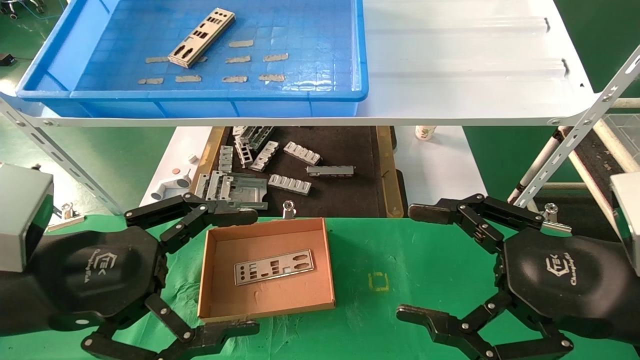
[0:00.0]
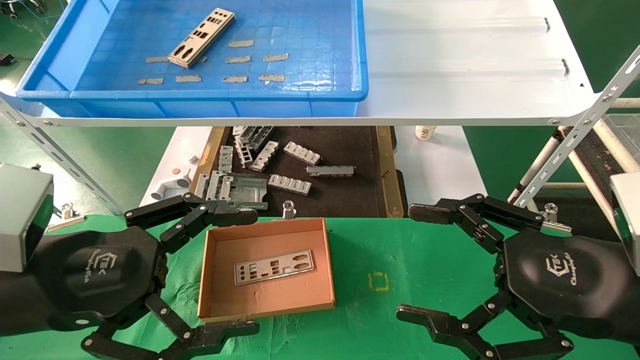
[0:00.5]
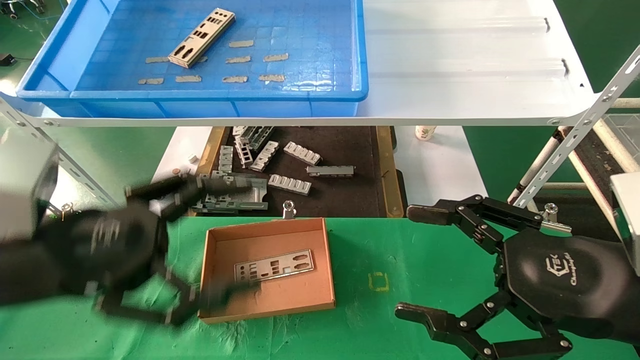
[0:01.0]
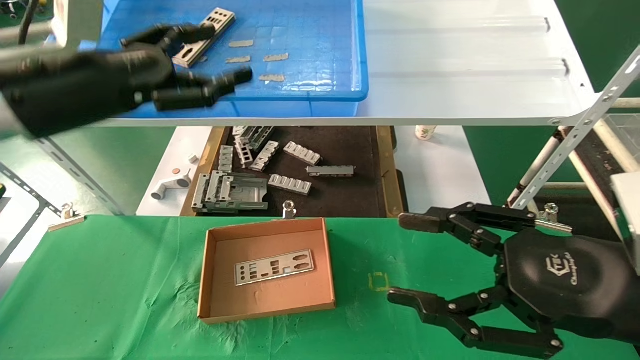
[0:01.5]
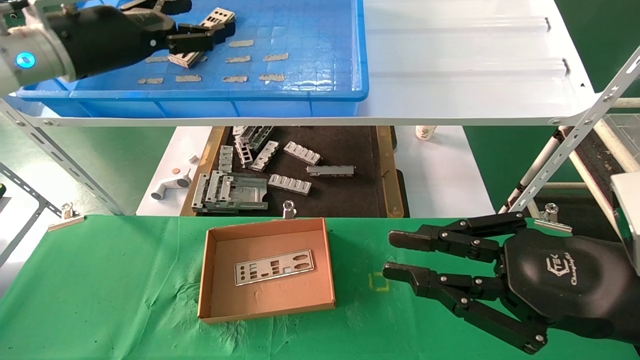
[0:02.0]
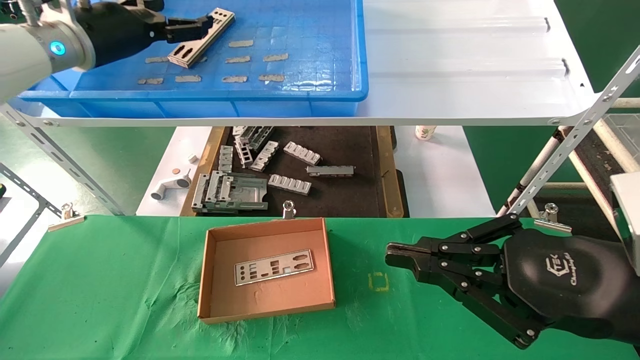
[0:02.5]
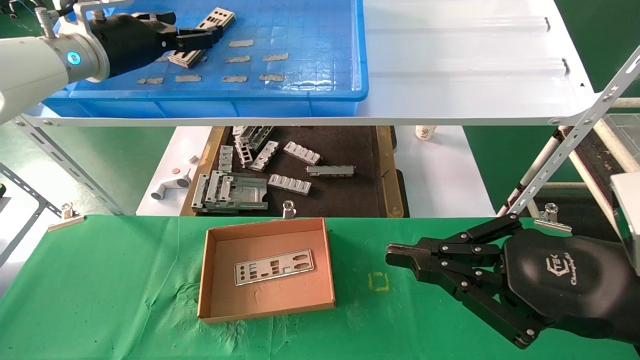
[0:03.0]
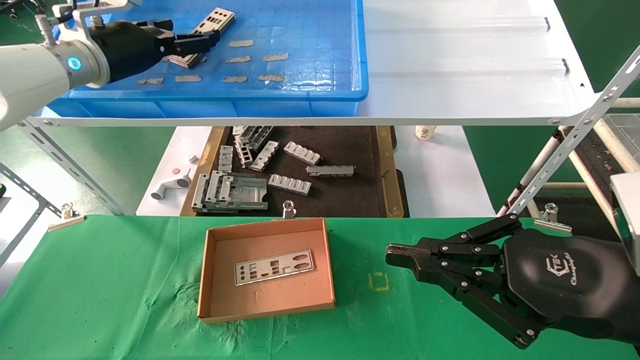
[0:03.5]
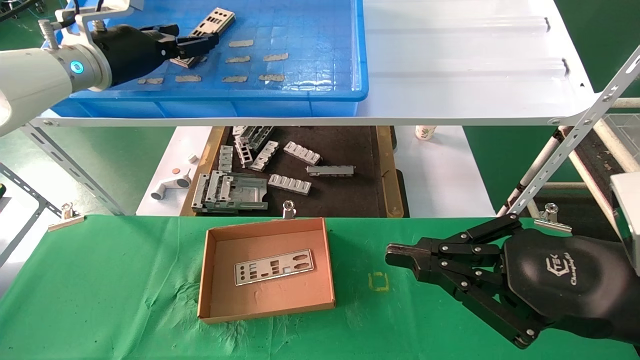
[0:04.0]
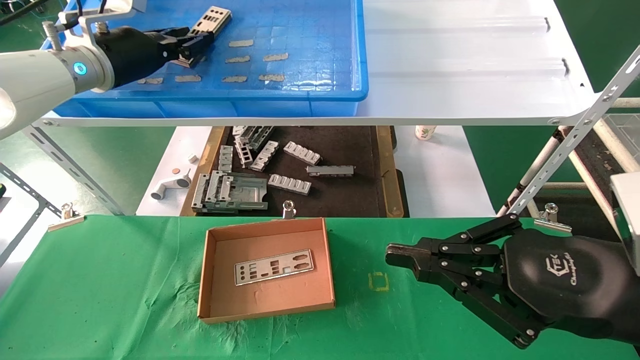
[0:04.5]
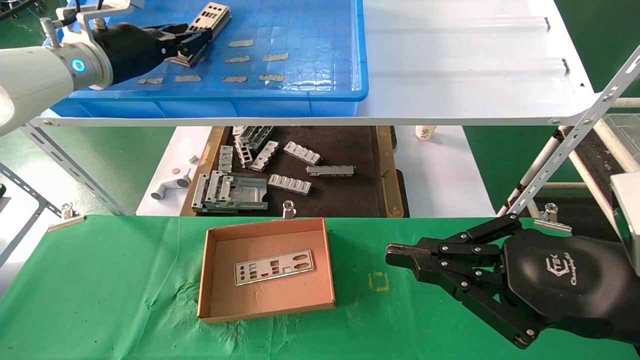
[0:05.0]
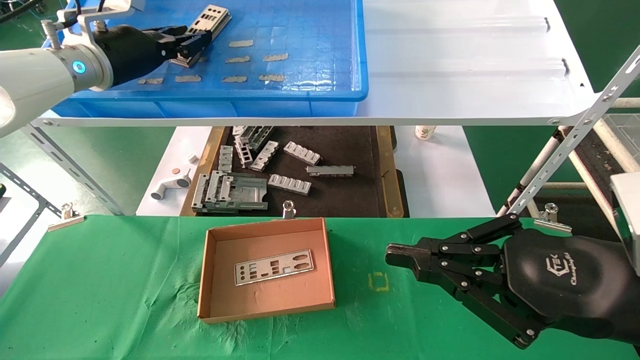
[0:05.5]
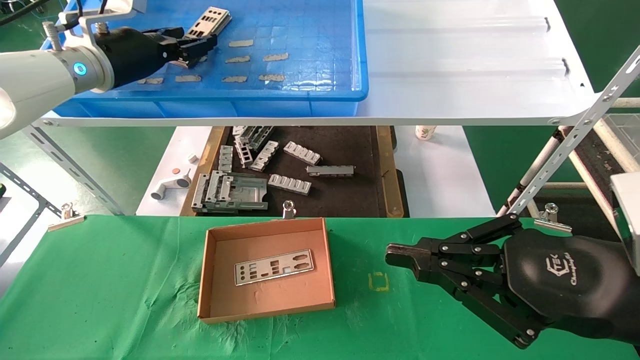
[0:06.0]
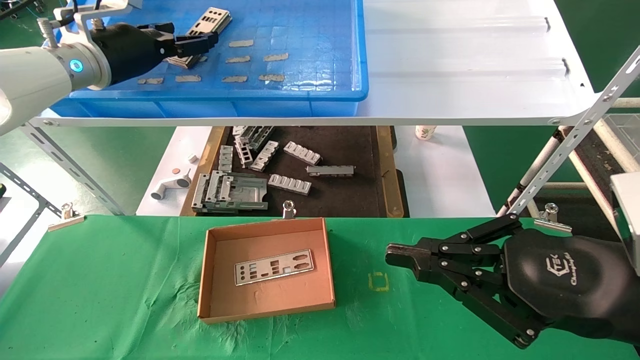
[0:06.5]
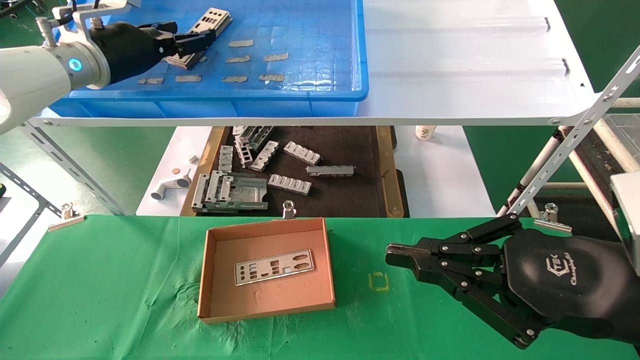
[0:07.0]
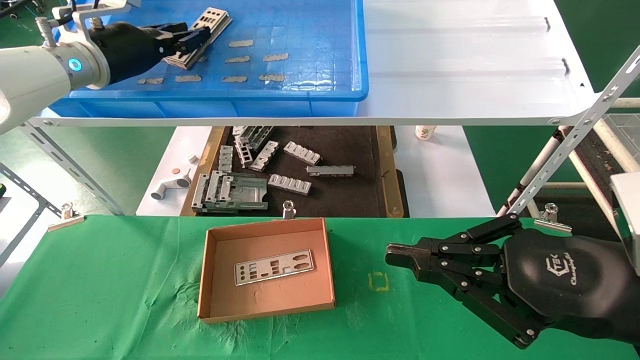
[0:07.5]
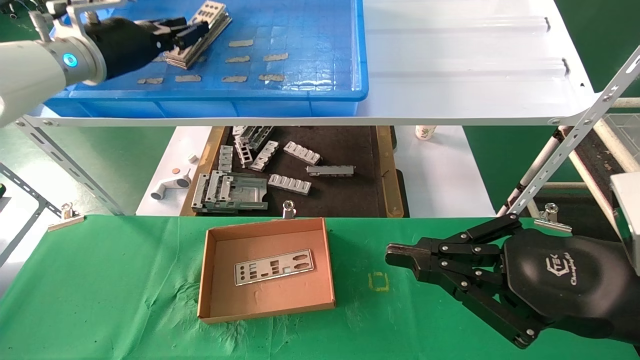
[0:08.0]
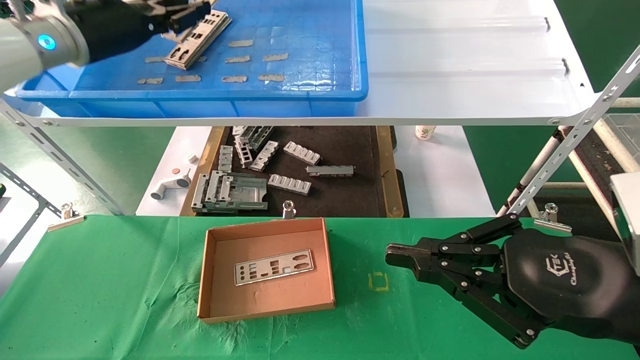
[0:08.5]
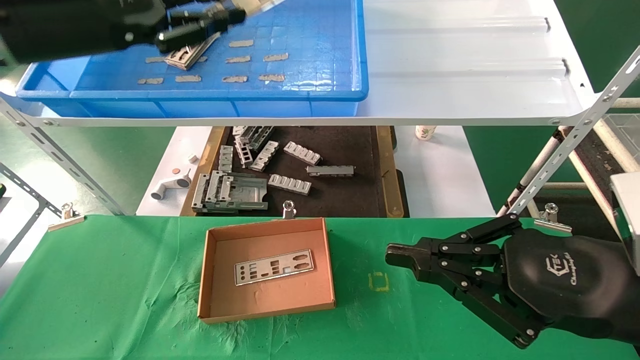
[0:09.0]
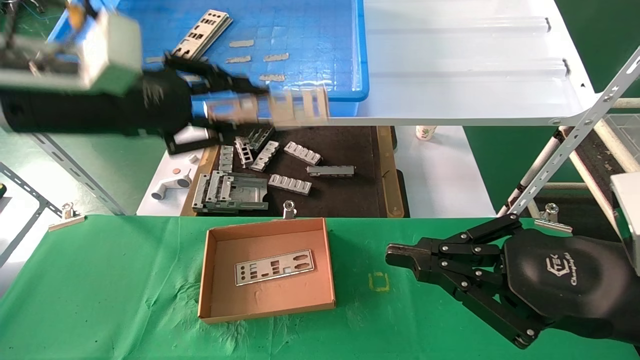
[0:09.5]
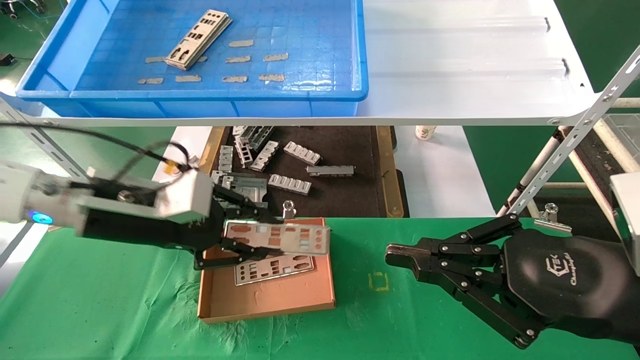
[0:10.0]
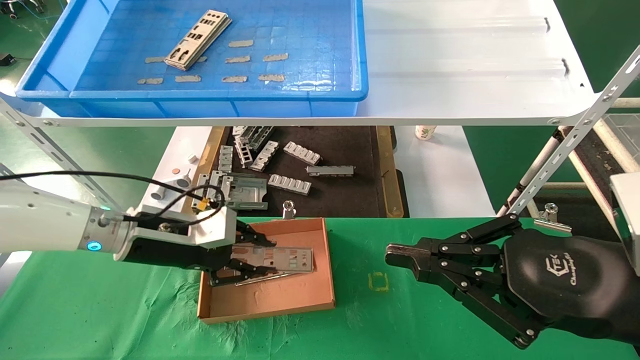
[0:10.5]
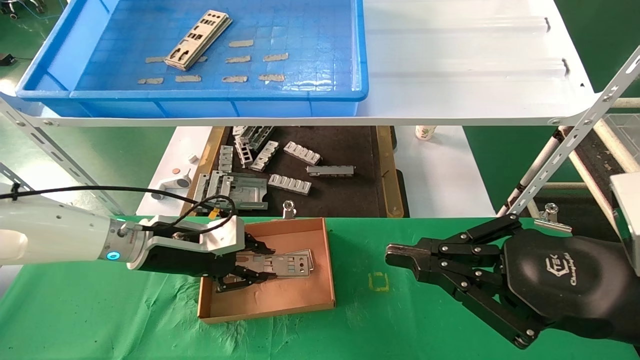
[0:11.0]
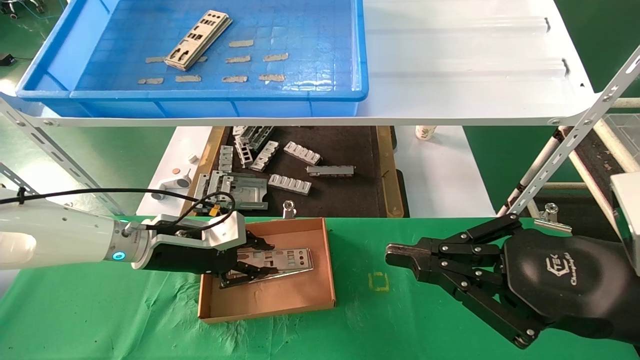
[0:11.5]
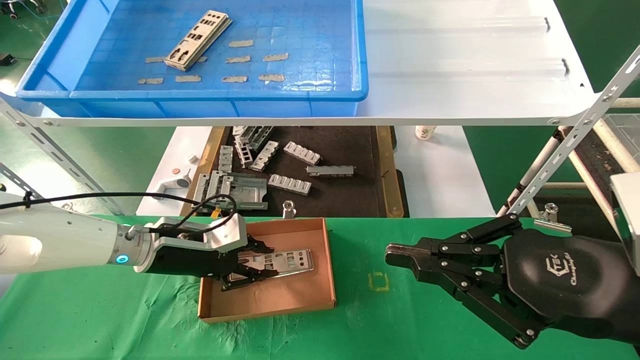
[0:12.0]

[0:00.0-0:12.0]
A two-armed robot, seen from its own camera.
Task of the whole recording: pick up the parts on the tray and put them in the cardboard box.
Step, 0:01.5 to 0:08.0: Pick up the IO bracket from the container box.
0:00.0 to 0:02.0: The left gripper shifts about 25 cm forward and upward. The right gripper closes its fingers.
0:02.0 to 0:04.0: The left gripper goes roughly 5 cm forward.
0:04.0 to 0:06.0: The left gripper closes.
0:06.0 to 0:08.0: The left gripper opens and closes again.
0:08.0 to 0:10.0: The left gripper moves downward and backward, some 20 cm.
0:10.0 to 0:12.0: The left gripper is displaced downward and forward by about 15 cm.

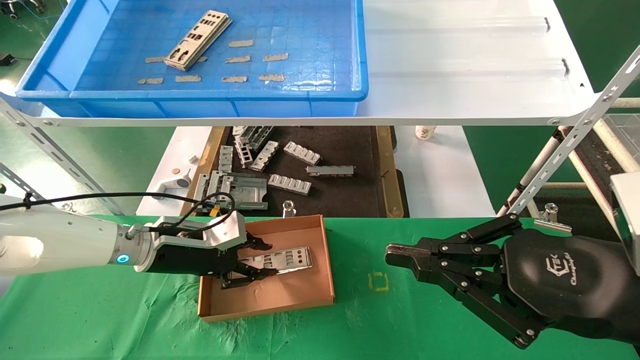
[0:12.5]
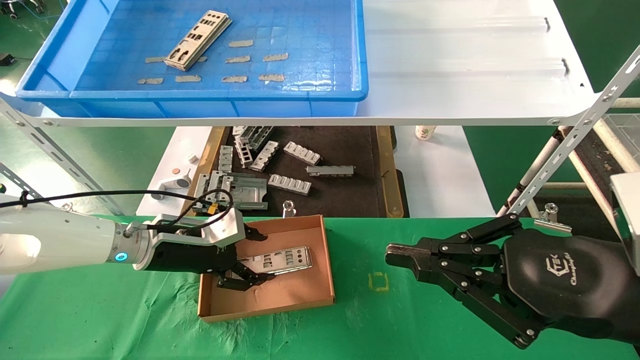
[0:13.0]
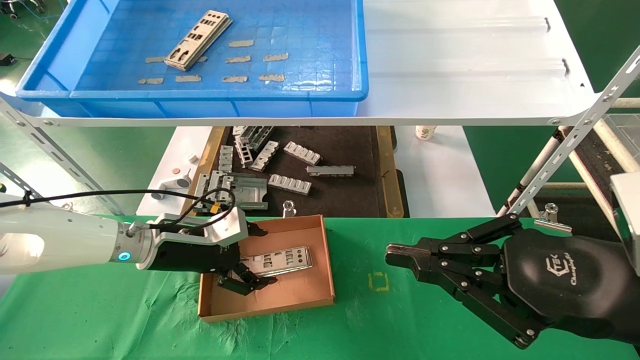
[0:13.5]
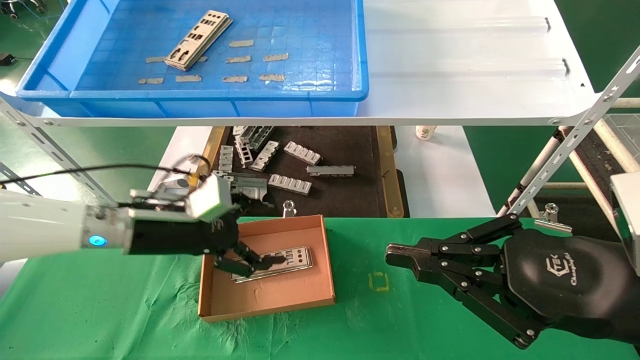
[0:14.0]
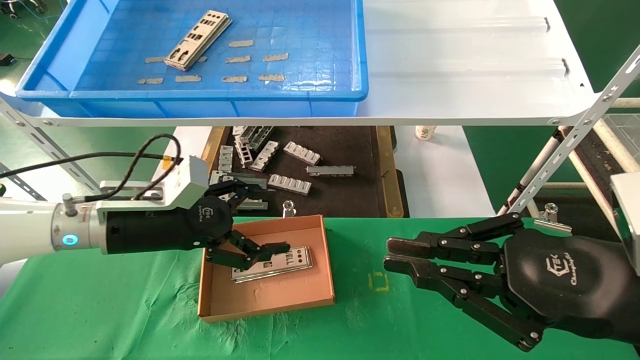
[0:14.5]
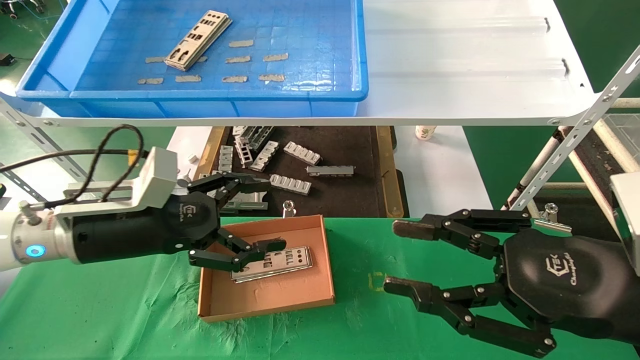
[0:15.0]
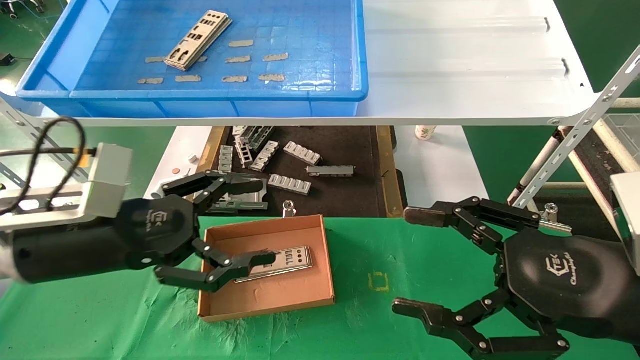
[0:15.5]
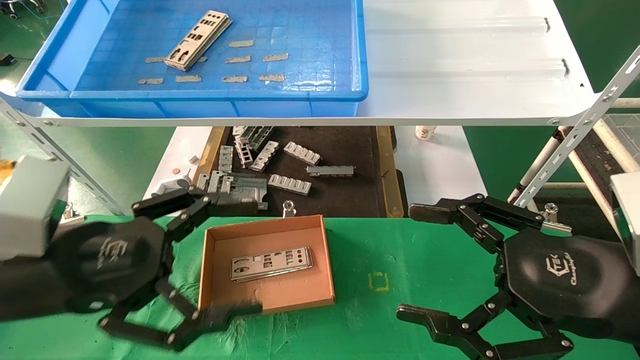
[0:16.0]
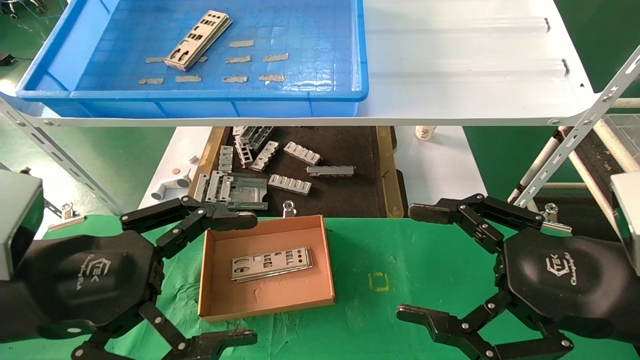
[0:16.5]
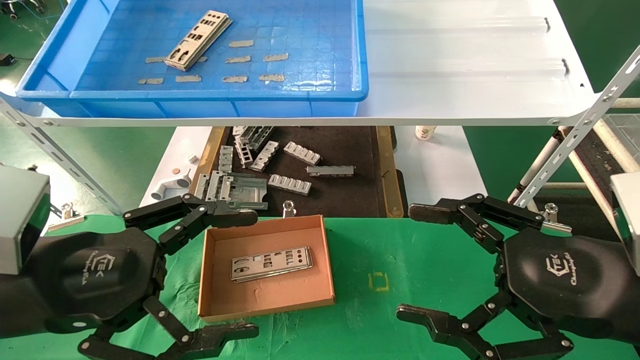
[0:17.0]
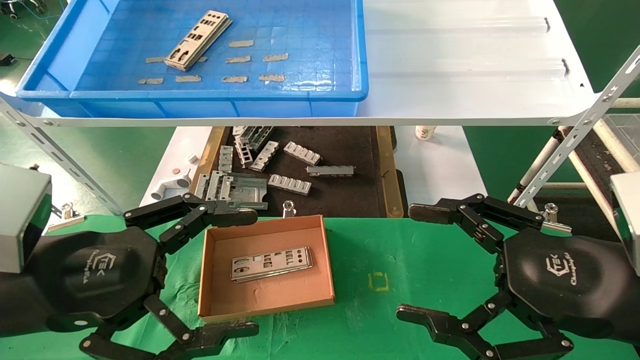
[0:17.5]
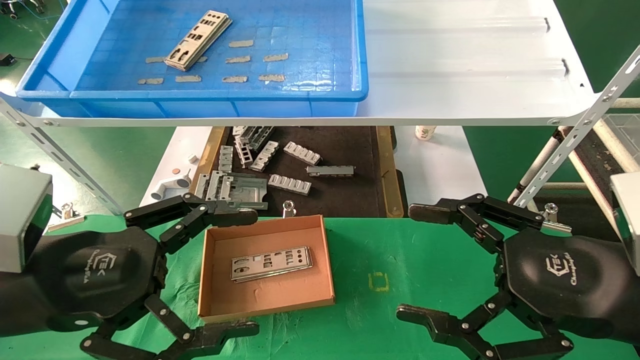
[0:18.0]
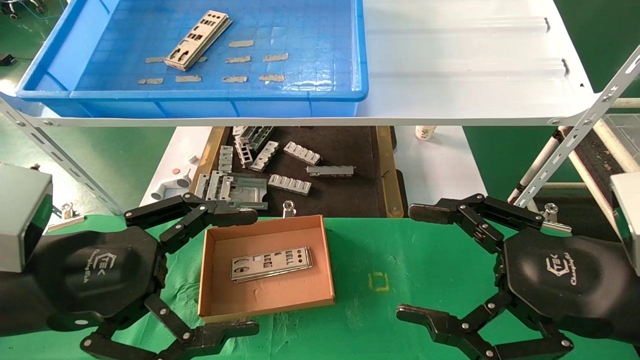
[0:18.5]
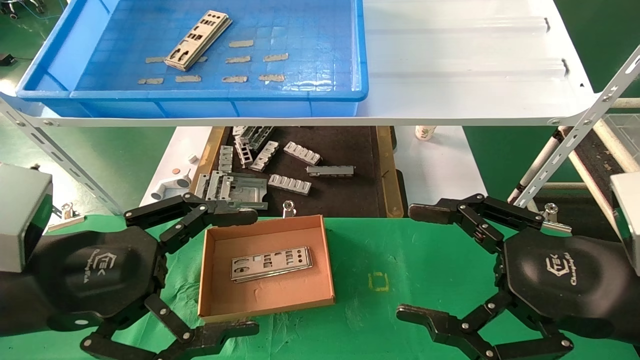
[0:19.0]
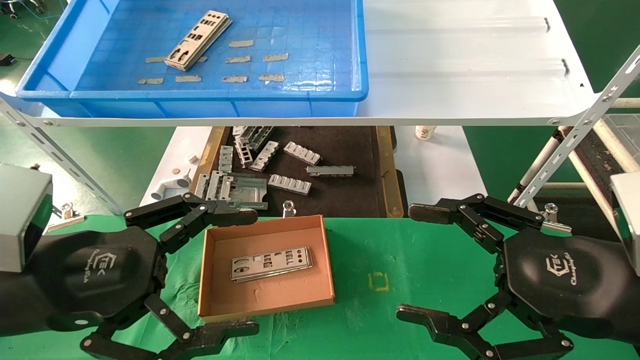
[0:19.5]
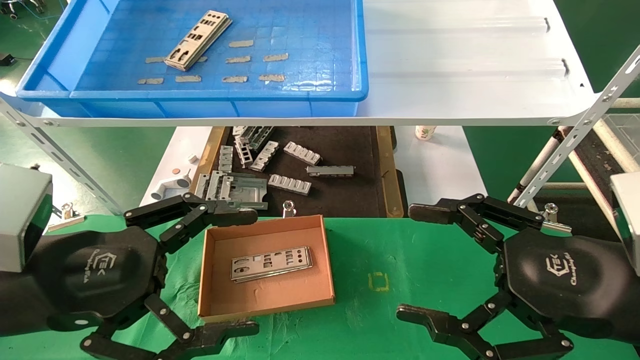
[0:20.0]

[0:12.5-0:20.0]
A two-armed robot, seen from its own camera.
Task of the whole recording: pick up the parts on the tray and put them in the cardboard box.
0:12.5 to 0:14.5: The left gripper moves upward and backward, roughly 10 cm, and opens.
0:14.5 to 0:16.5: The left gripper is displaced backward by roughly 20 cm; the right gripper opens.
0:16.5 to 0:20.0: Both grippers stay put.
